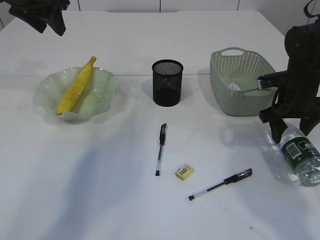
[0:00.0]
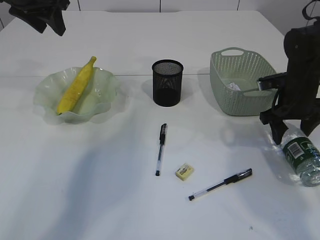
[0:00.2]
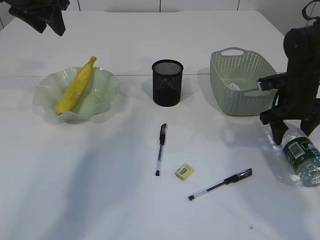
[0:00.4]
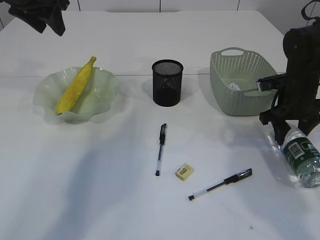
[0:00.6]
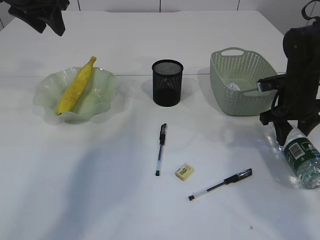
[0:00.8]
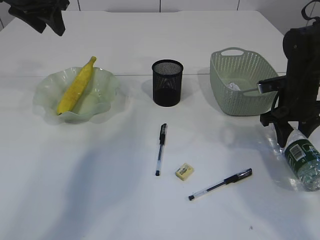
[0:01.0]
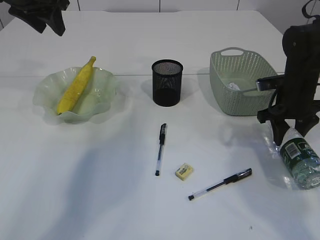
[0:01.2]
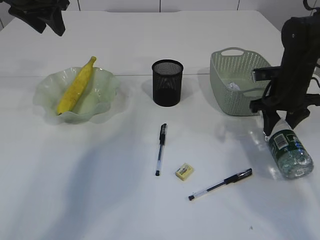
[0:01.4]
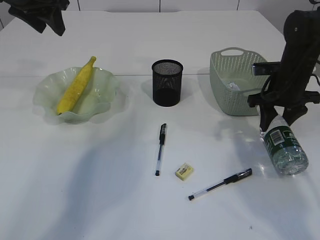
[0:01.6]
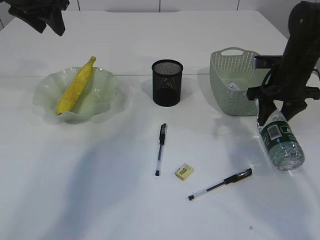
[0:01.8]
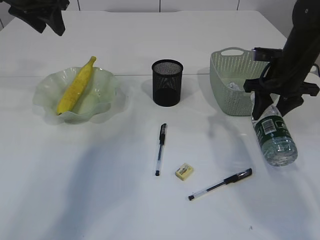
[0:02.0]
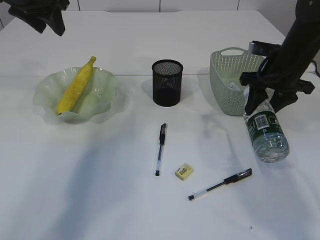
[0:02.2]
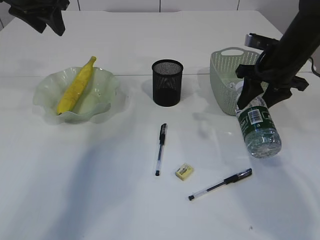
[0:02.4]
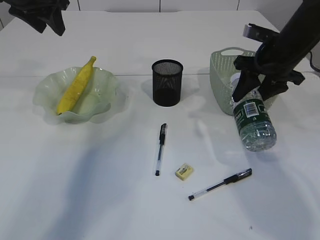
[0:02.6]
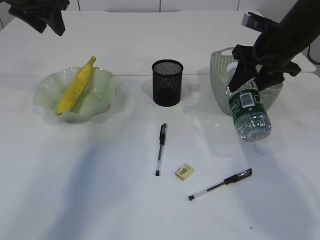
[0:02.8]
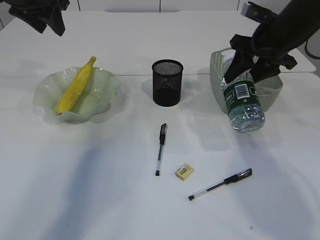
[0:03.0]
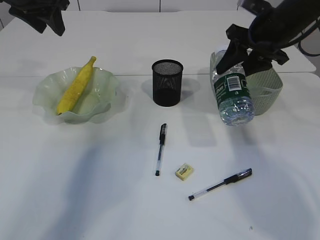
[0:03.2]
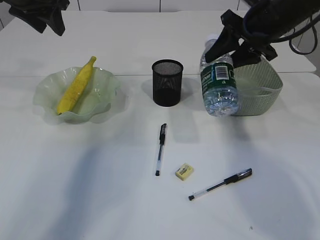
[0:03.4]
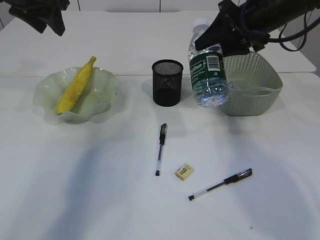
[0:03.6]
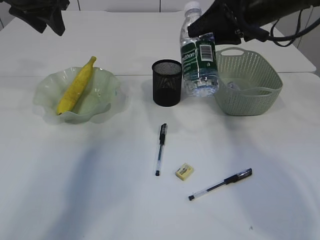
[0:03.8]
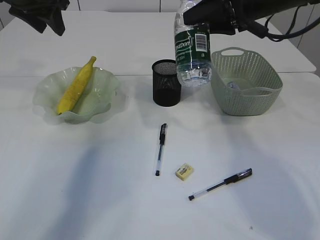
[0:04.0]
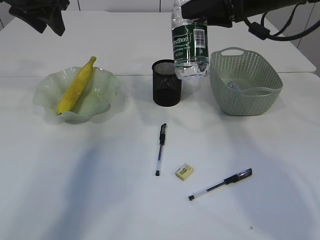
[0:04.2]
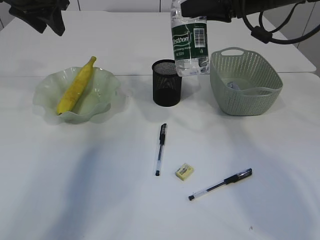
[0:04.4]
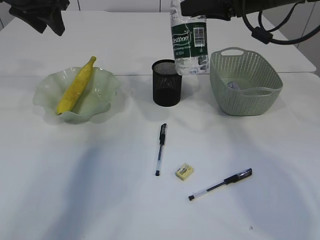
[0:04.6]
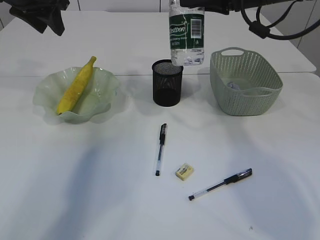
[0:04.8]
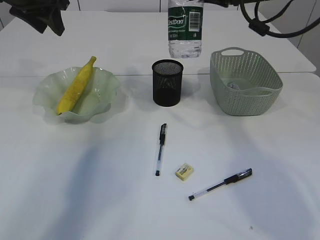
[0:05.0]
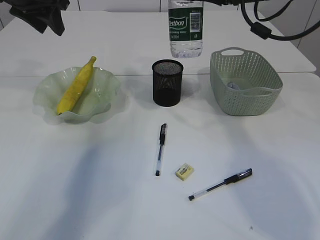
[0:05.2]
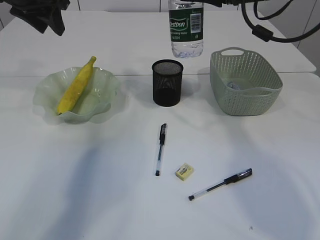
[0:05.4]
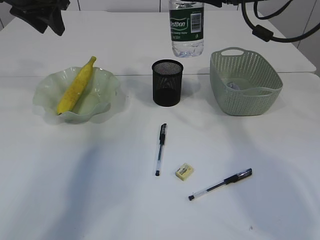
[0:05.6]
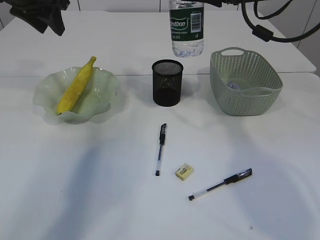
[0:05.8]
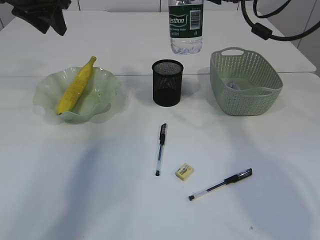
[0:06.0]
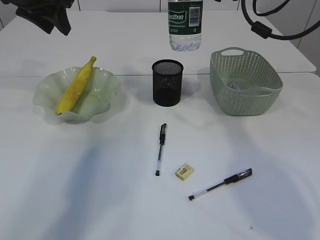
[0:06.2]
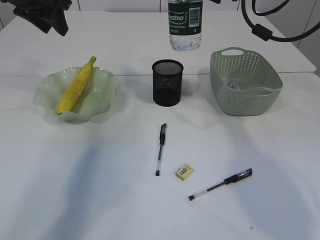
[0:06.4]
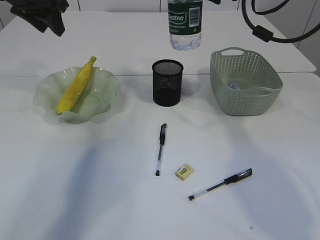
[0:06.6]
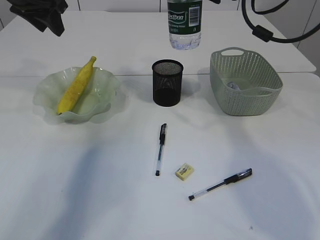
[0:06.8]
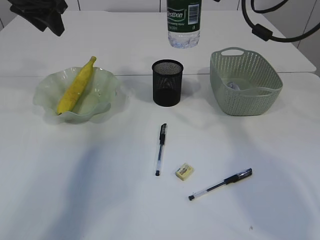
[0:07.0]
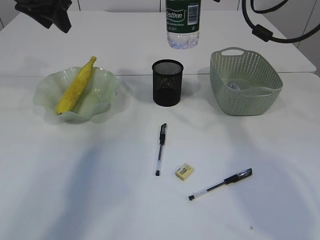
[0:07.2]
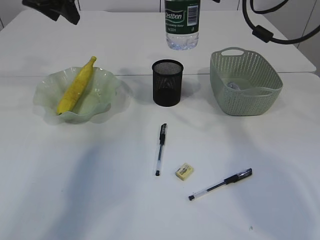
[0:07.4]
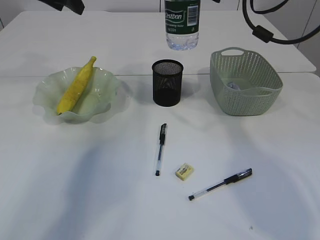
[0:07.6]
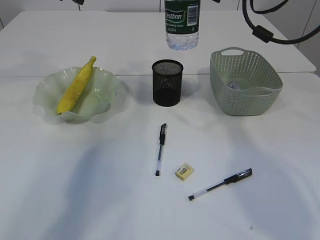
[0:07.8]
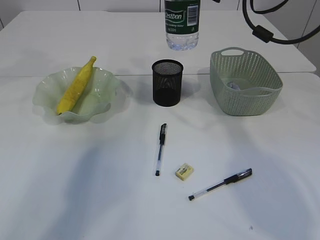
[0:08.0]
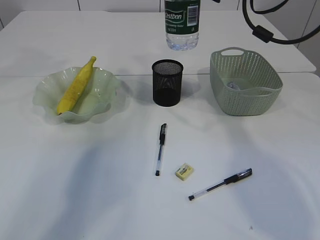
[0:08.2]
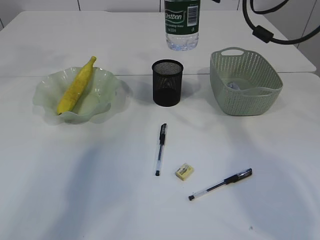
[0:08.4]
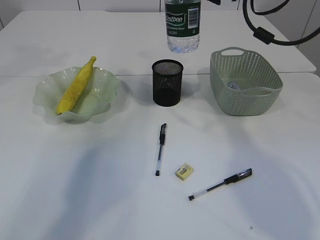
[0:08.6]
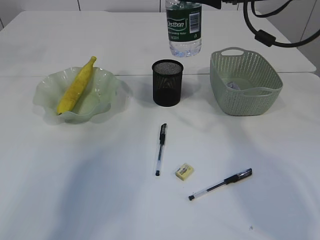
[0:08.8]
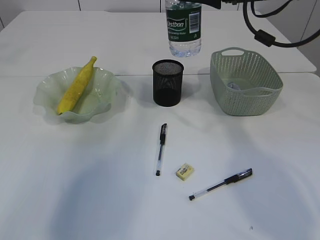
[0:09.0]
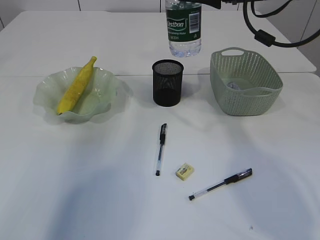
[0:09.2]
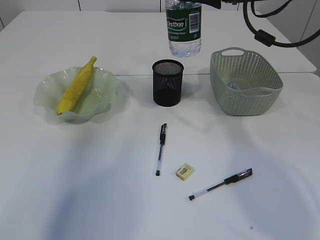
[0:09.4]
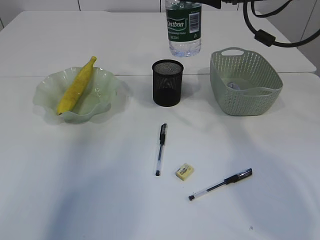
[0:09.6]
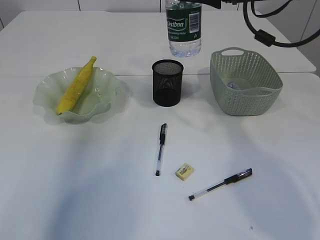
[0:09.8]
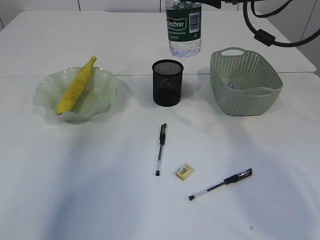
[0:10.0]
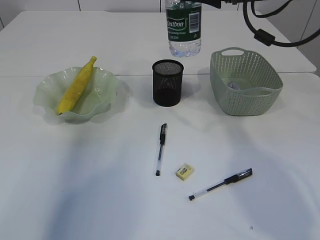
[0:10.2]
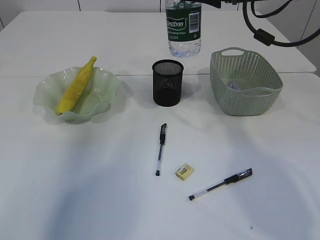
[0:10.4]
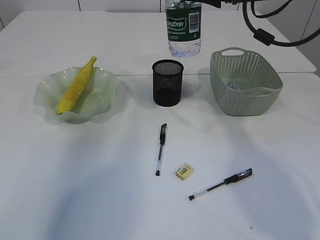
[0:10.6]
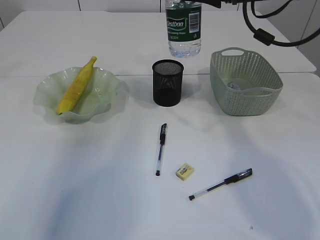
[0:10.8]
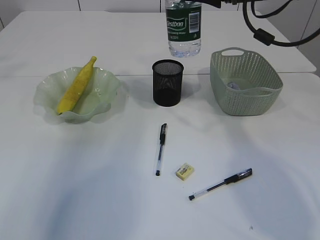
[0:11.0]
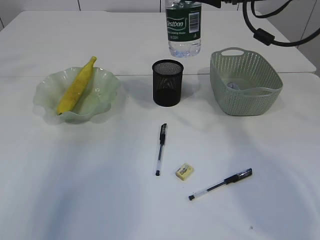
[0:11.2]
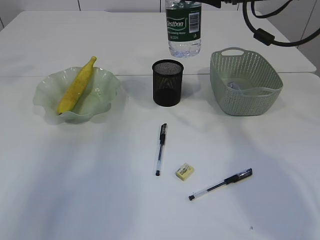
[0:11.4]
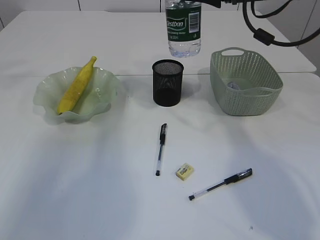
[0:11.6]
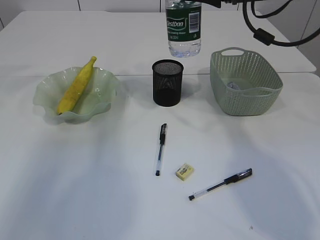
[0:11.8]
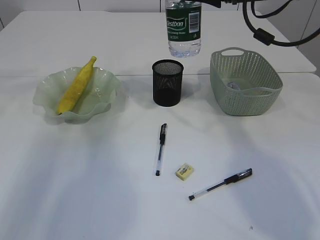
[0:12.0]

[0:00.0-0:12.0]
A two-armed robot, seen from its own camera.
Step, 0:00.0 to 0:02.4: Pick up the bottle with the right arm.
0:00.0 to 0:01.6: There are only small adjustments of the grippers.
0:01.6 to 0:03.0: The right gripper travels upward by some 10 cm.
0:03.0 to 0:04.4: The right gripper heads upward, covering some 5 cm.
0:06.0 to 0:07.6: The grippers stay close to where they were, moving slightly.
0:07.6 to 0:09.0: The left gripper travels upward by some 15 cm.
0:10.4 to 0:12.0: The left gripper moves downward, approximately 15 cm.

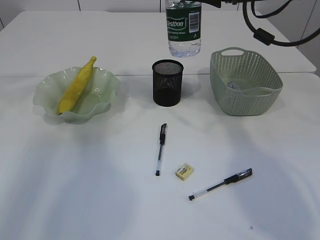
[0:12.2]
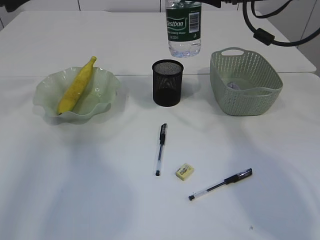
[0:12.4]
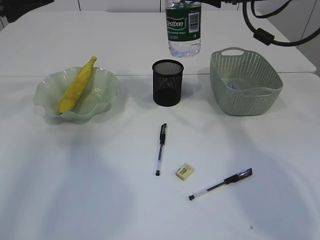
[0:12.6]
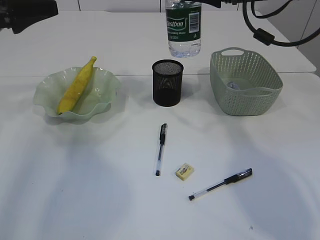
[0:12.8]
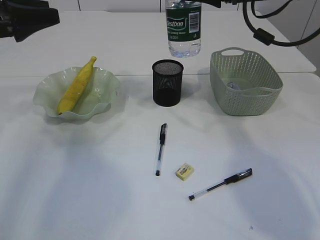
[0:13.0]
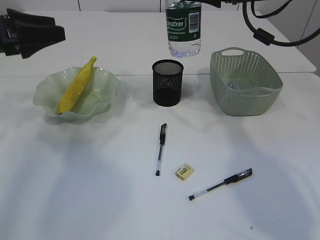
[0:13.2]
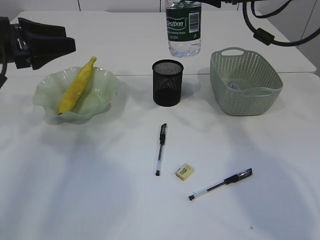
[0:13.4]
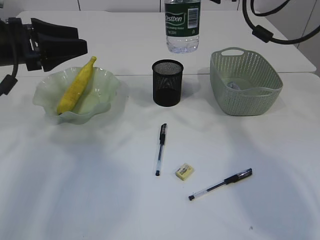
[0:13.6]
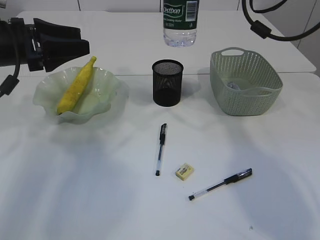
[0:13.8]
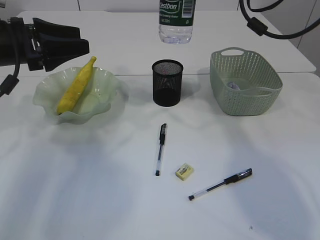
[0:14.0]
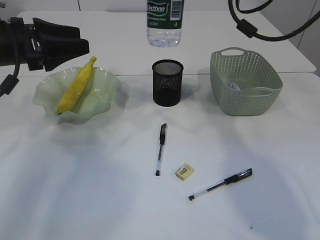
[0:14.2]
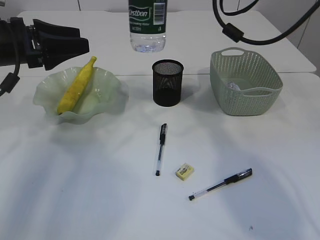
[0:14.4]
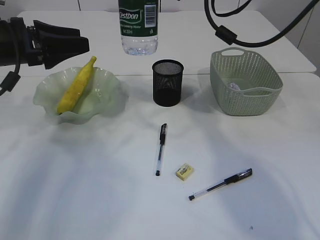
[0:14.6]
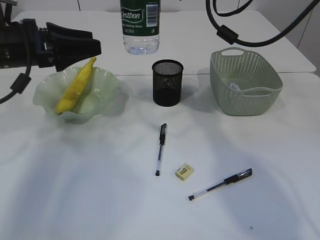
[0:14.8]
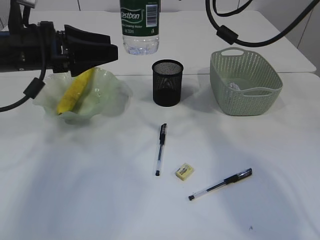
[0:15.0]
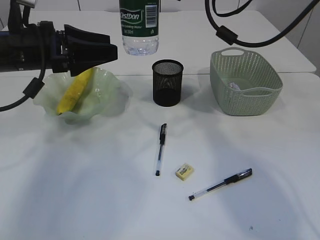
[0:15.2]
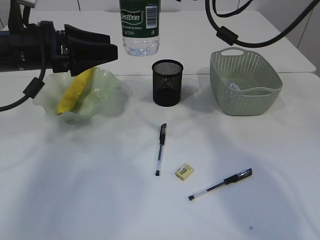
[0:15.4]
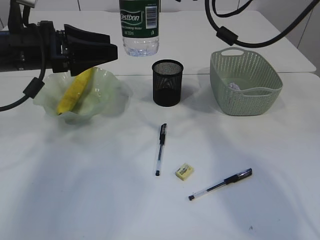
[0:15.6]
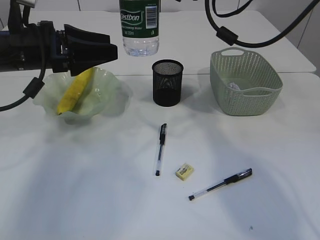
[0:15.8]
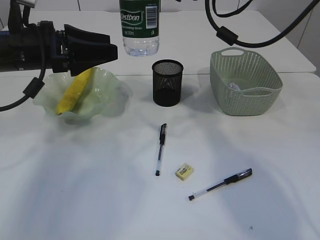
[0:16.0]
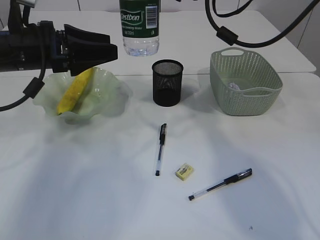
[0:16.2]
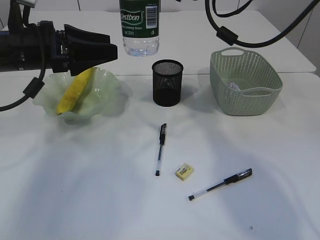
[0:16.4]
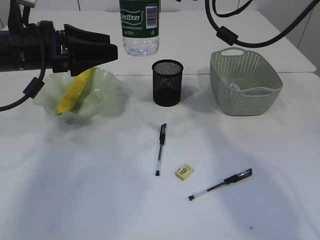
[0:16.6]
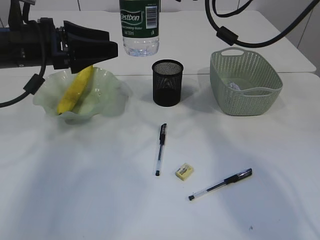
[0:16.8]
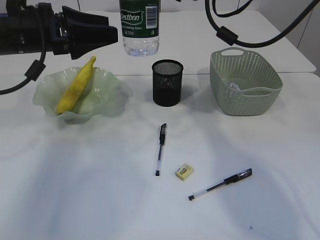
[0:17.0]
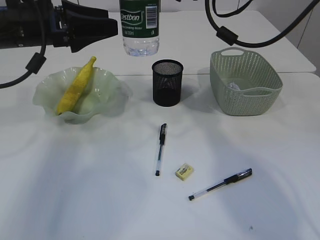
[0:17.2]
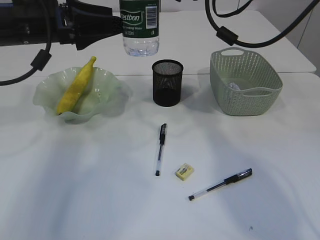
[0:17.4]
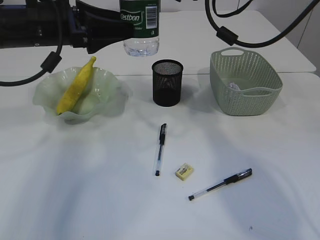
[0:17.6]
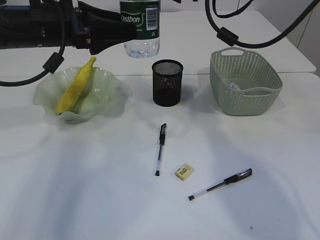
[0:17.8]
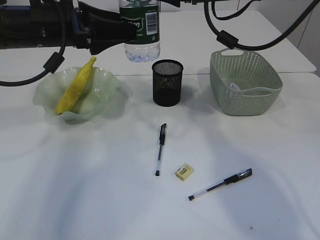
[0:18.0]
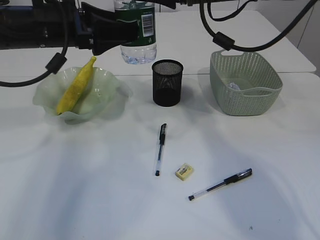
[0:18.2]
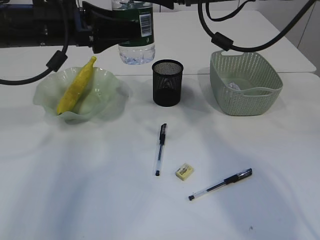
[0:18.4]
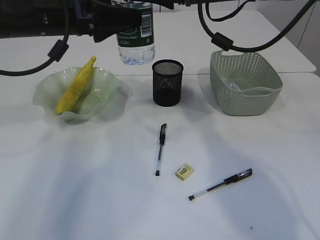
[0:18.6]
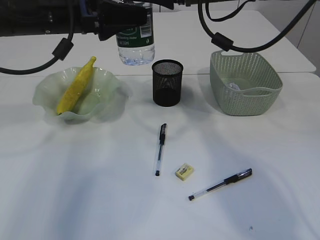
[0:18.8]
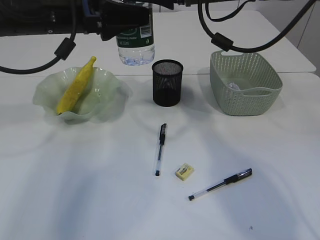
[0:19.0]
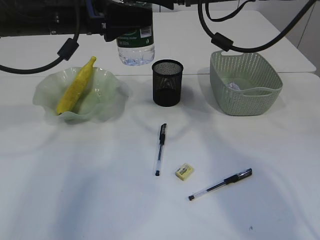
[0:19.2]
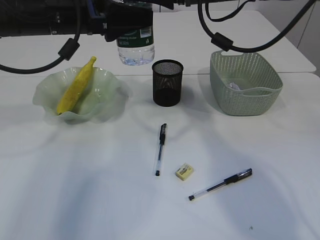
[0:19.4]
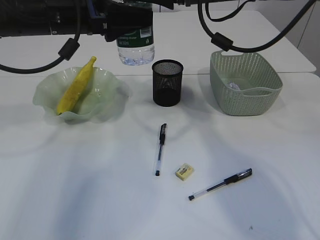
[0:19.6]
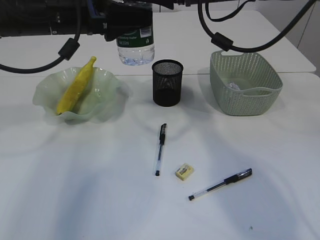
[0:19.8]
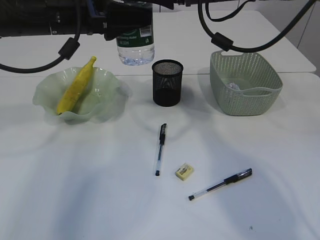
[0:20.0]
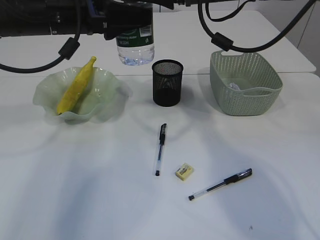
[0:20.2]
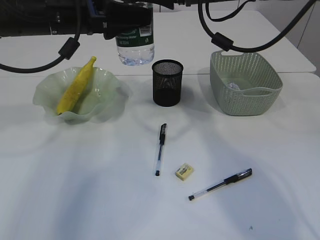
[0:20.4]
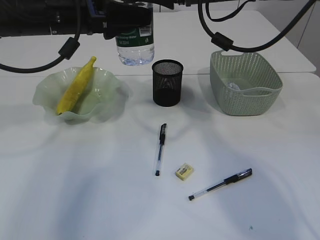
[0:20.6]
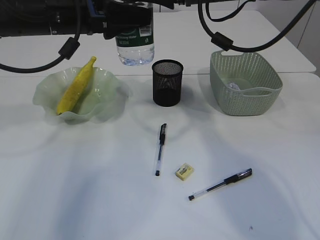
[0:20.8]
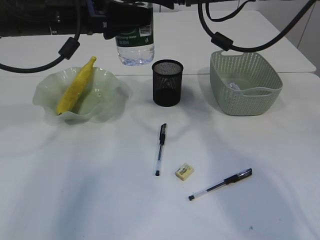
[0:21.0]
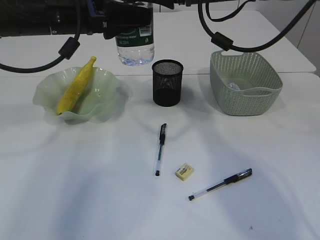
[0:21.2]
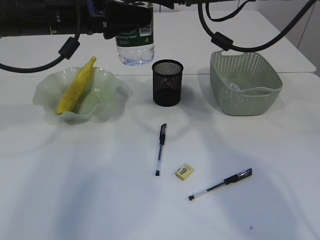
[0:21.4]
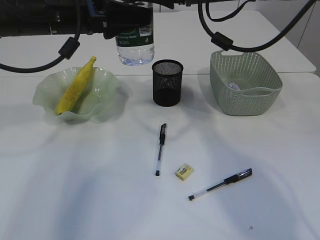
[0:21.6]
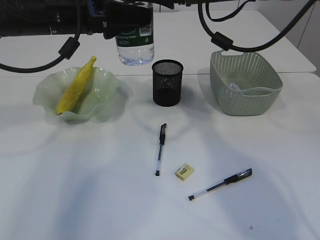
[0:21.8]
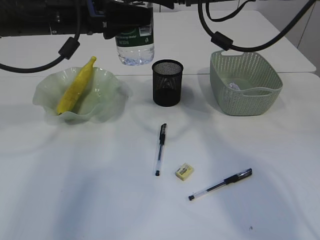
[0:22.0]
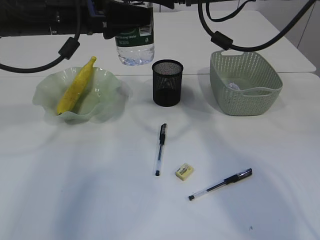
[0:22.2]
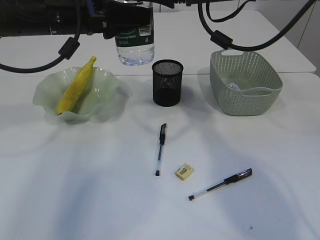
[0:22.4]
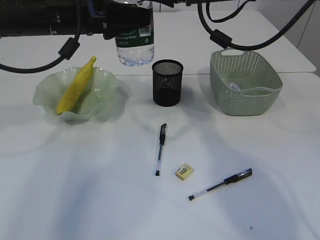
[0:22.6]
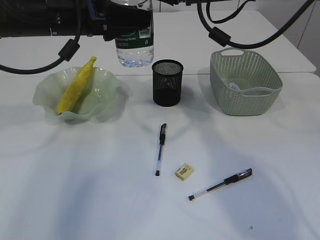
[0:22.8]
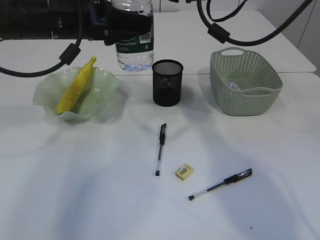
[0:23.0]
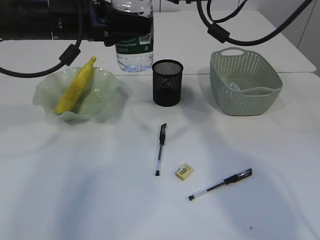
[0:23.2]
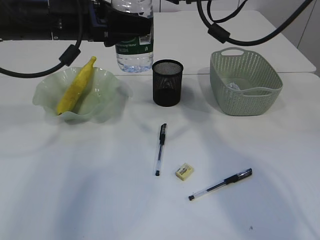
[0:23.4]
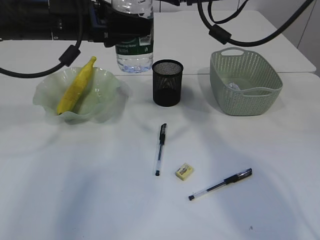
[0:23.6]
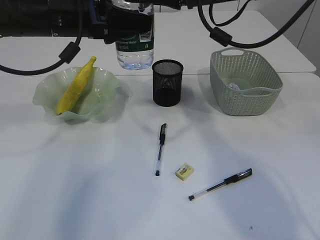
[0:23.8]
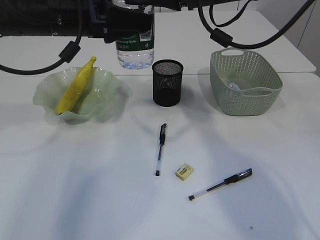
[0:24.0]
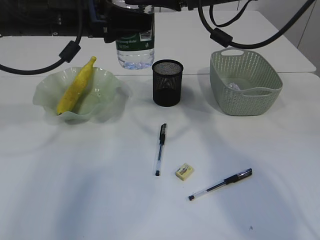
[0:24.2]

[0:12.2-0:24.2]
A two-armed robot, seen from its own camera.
0:12.2 to 0:13.8: The left gripper travels downward by about 10 cm.
0:13.8 to 0:15.2: The right gripper travels to the left by about 5 cm. The left gripper moves about 5 cm.
0:15.2 to 0:16.6: The two grippers keep their place.
0:16.6 to 0:18.2: The grippers make only small movements.
0:18.2 to 0:19.8: The grippers make only small movements.
0:19.8 to 0:22.6: Neither gripper changes place.
0:22.6 to 0:24.2: The grippers make only small movements.
